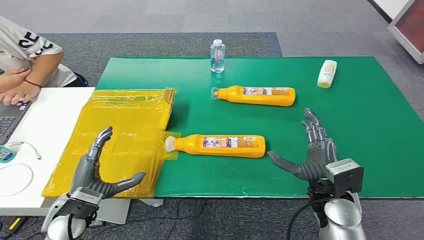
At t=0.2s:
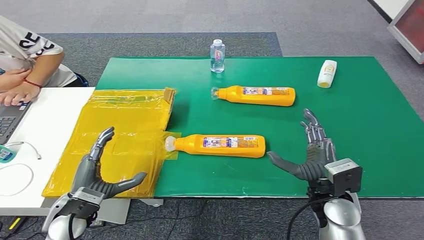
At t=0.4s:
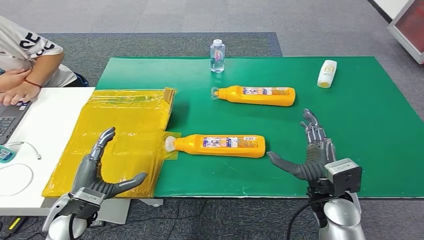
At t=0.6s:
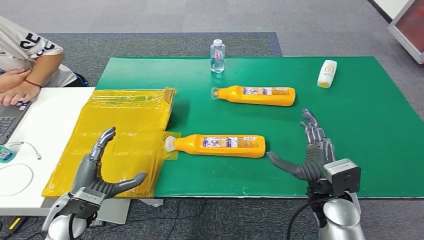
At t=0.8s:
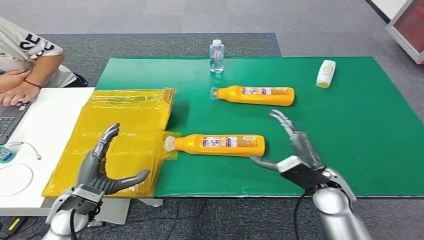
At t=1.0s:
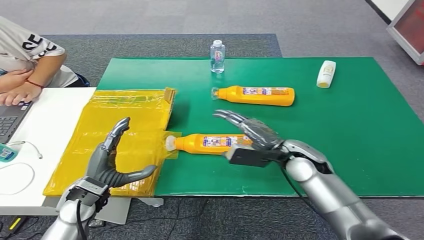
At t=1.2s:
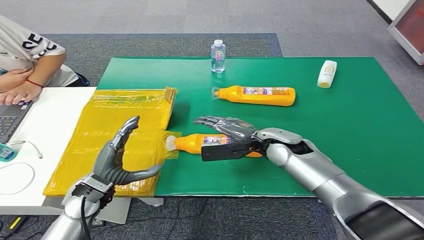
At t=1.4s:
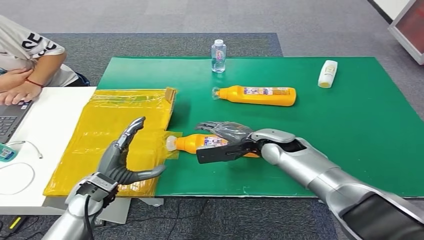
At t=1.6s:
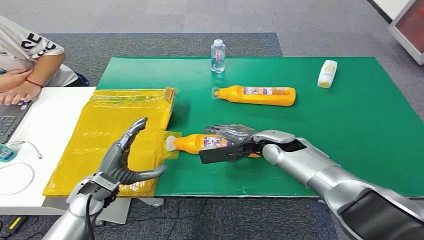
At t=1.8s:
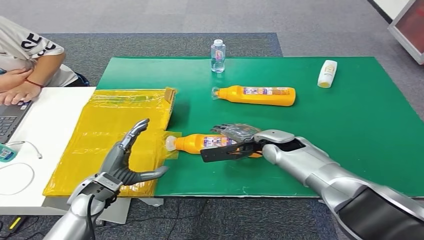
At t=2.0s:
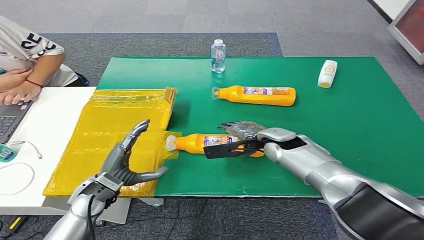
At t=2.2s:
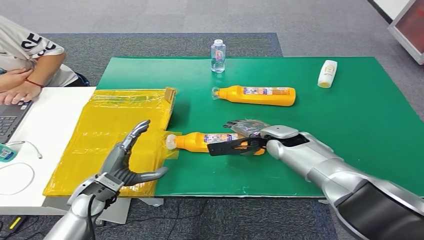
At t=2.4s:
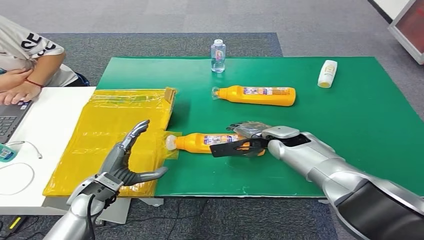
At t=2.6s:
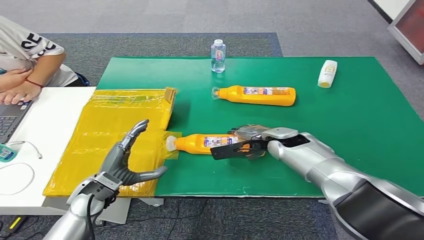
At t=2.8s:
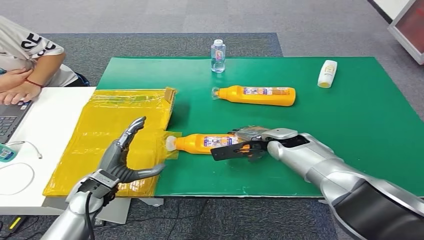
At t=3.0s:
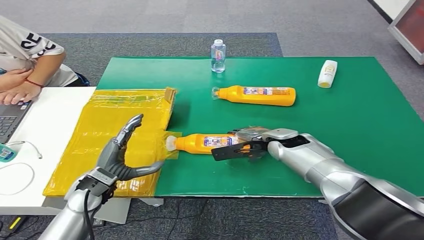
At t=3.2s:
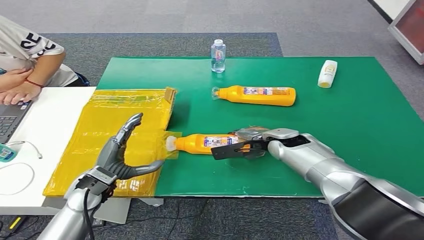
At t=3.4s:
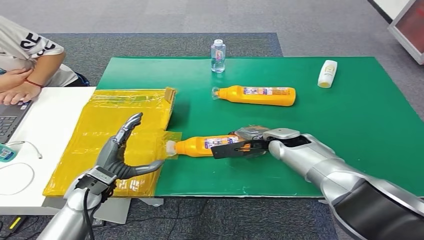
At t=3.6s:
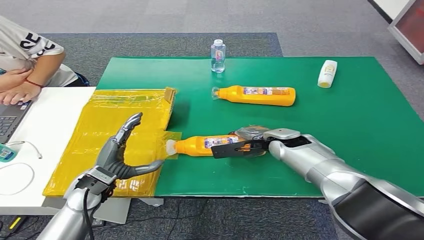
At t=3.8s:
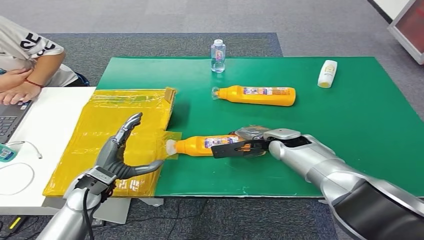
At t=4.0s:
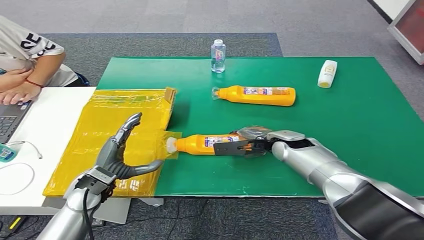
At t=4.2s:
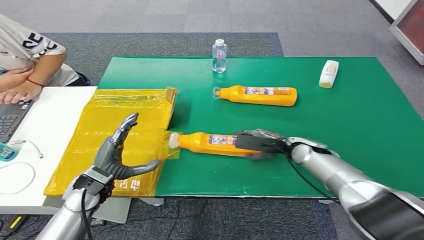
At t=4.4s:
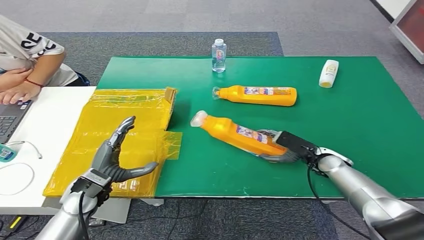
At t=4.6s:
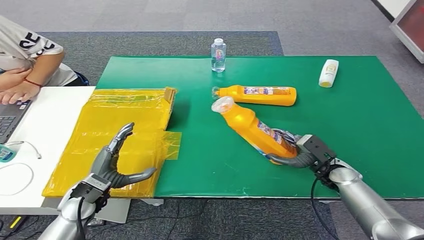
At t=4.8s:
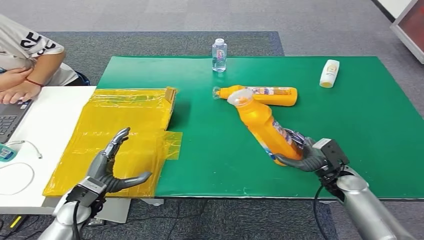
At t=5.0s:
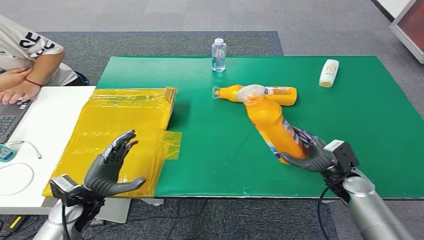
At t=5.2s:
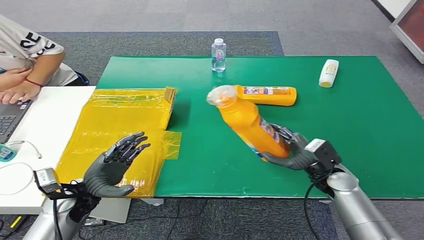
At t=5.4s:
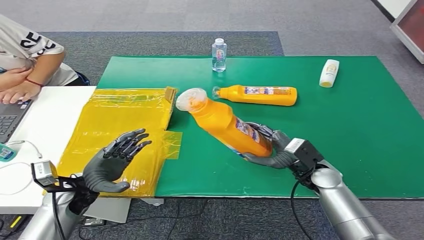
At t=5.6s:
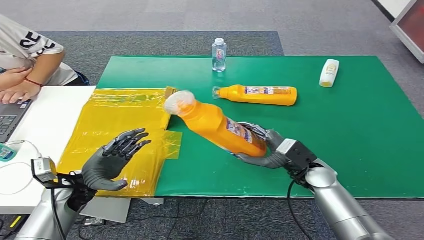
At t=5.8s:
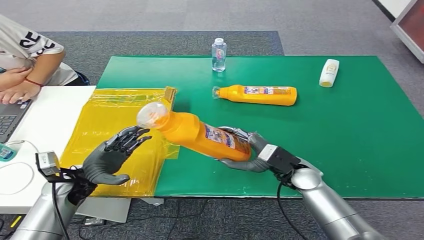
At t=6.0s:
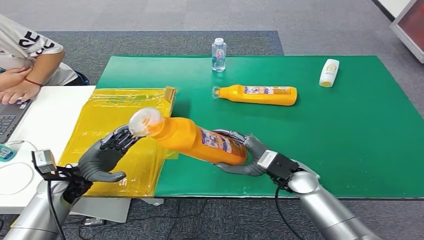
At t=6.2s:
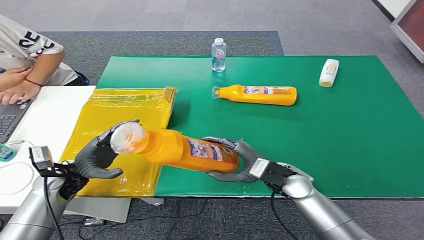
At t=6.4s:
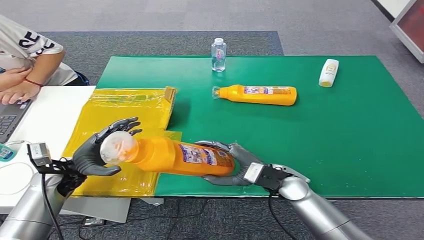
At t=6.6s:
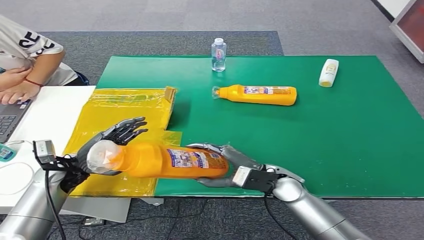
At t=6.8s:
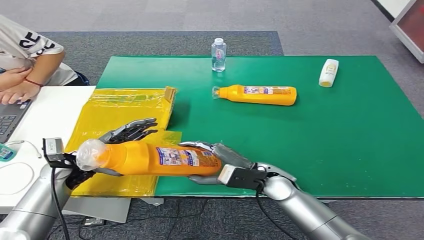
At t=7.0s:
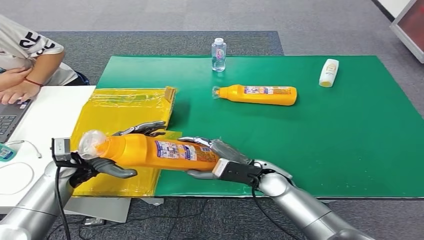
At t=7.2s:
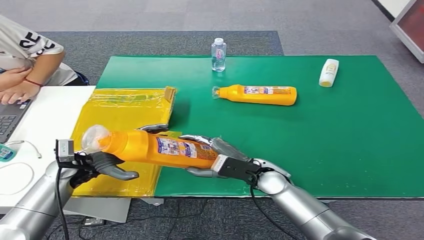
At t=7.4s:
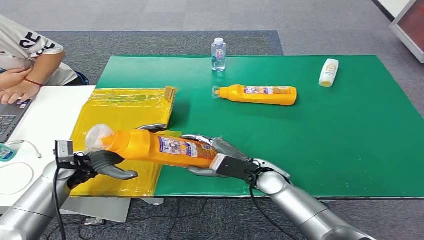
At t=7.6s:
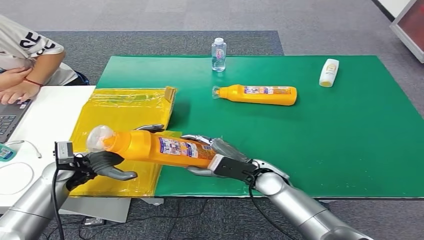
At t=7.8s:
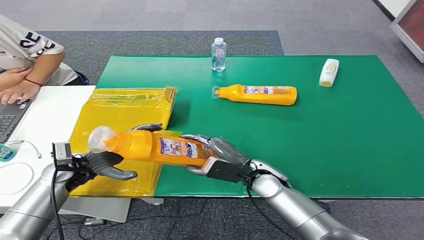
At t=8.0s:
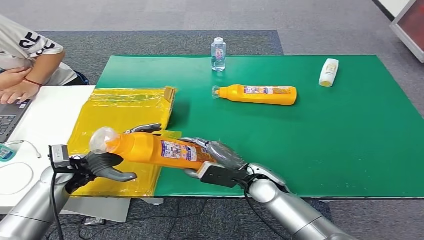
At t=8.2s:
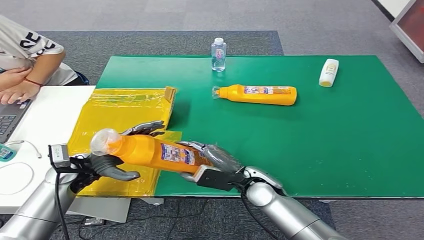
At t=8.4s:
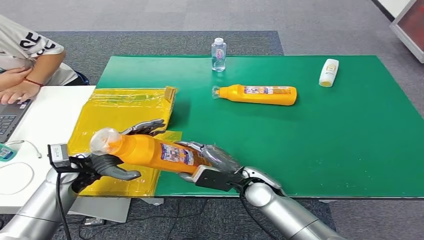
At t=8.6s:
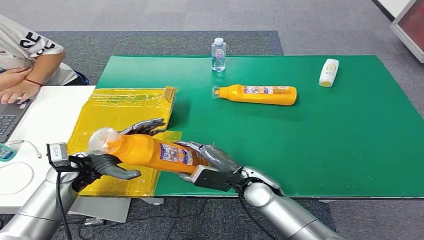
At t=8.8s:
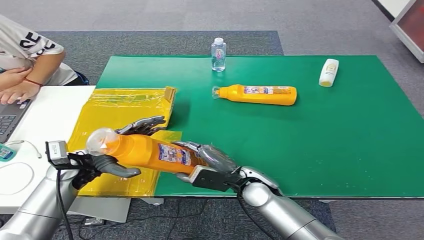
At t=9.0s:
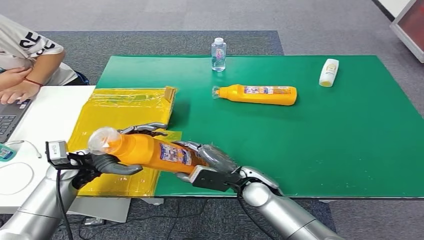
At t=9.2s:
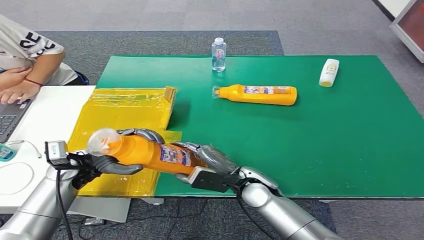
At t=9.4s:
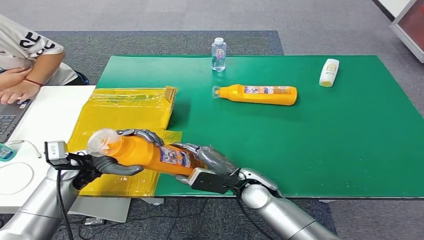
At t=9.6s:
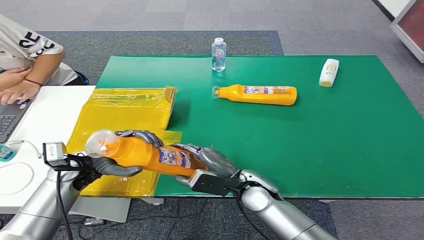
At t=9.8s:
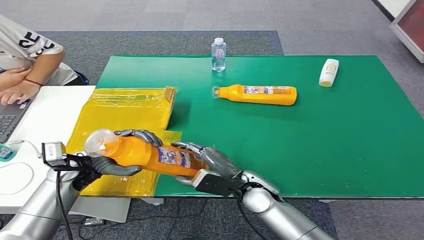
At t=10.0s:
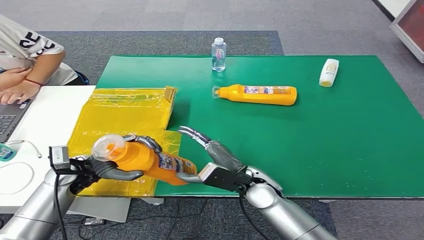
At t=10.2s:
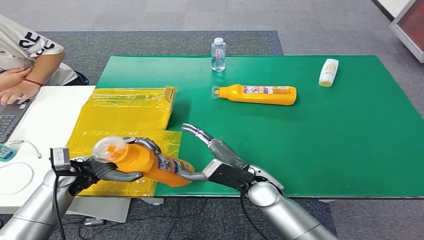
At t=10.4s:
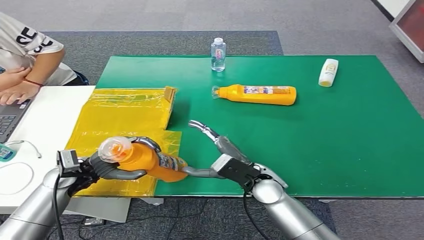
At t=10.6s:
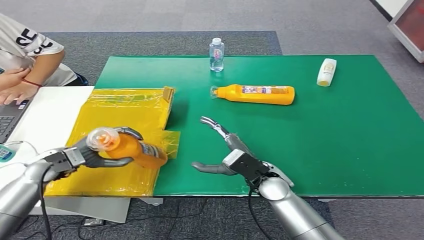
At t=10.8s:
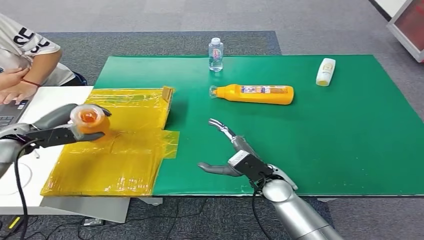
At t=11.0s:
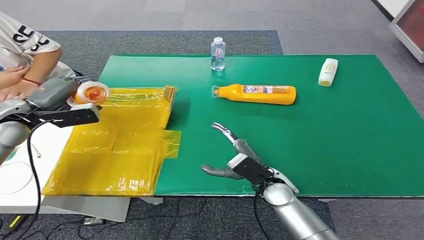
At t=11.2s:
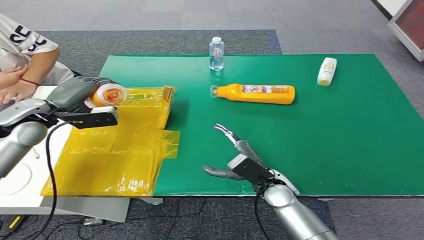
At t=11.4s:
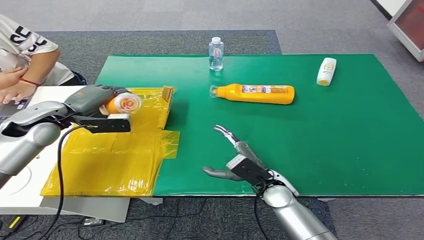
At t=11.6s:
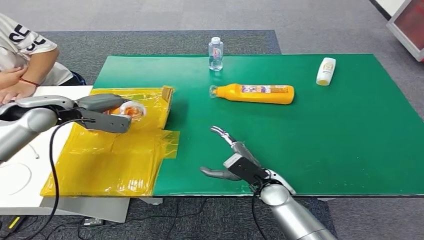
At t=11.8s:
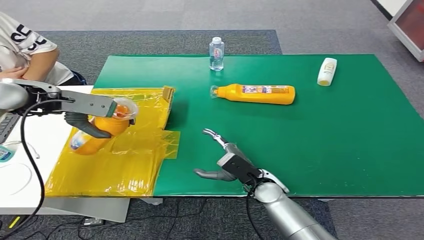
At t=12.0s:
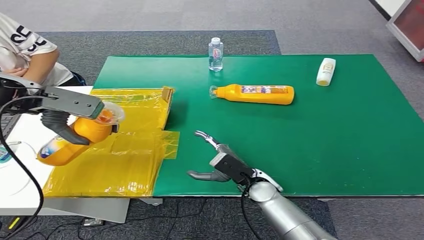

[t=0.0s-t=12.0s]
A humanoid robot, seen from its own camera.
Step, t=0.0s to t=5.6s: Pick up the bottle from the table.
t=3.0s to t=4.4s: The right hand moves to the right and downward, about 15 cm.
t=6.0s to t=7.6s: The right hand goes roughly 5 cm to the left.
t=7.6s to t=10.4s: The hands stay close to where they were, moving slightly.

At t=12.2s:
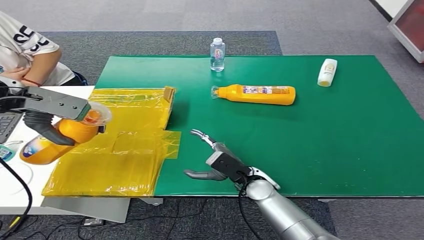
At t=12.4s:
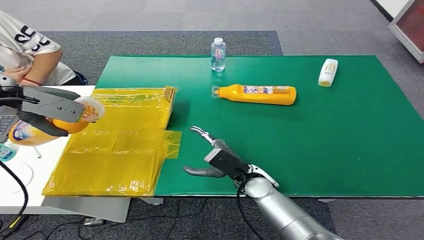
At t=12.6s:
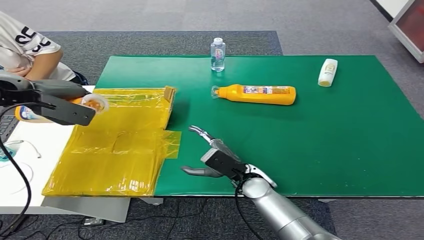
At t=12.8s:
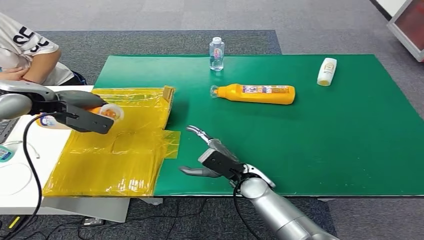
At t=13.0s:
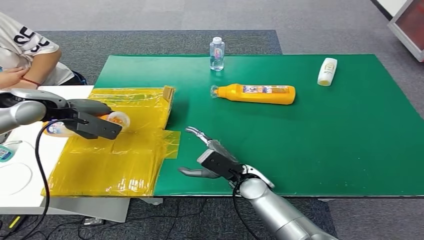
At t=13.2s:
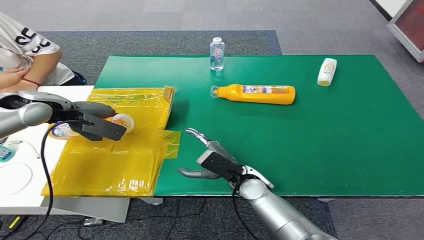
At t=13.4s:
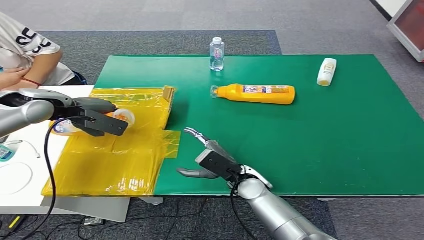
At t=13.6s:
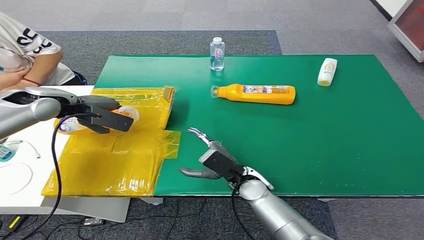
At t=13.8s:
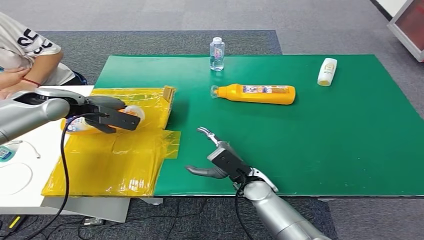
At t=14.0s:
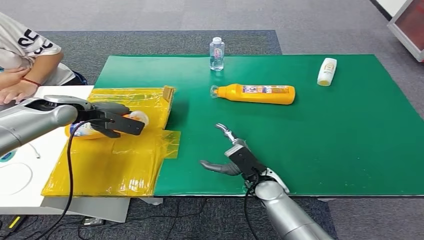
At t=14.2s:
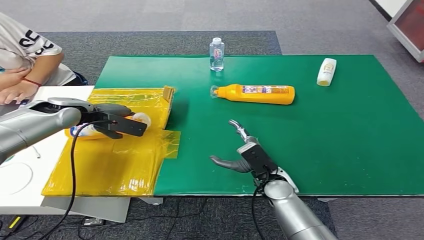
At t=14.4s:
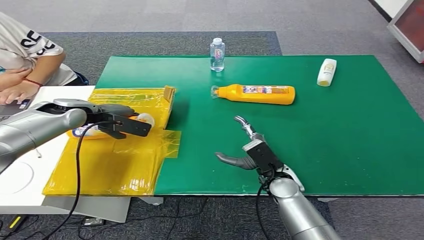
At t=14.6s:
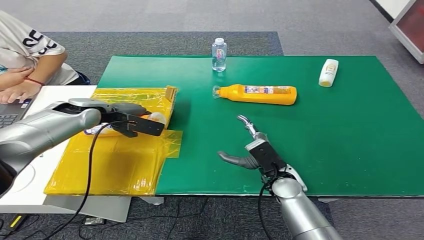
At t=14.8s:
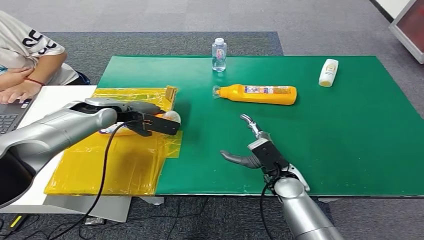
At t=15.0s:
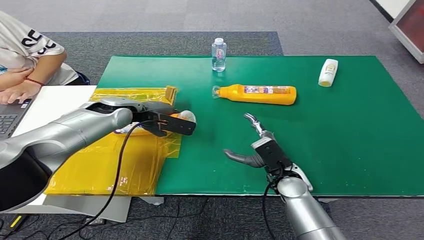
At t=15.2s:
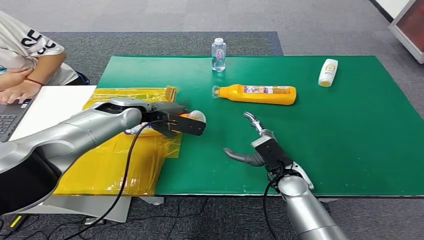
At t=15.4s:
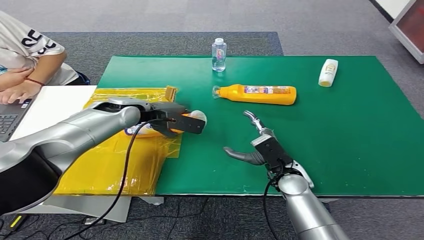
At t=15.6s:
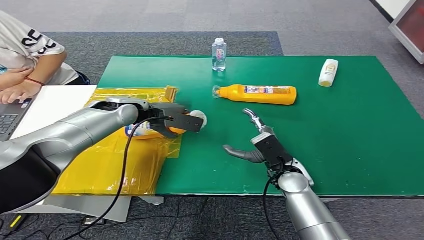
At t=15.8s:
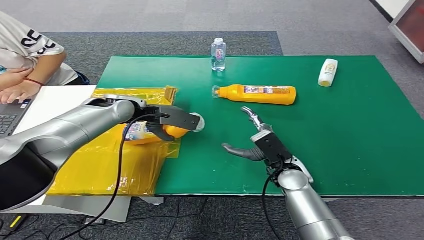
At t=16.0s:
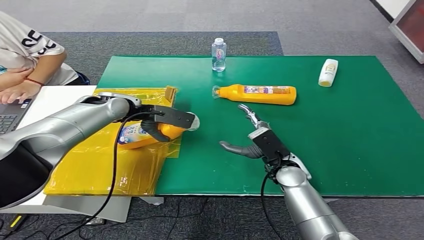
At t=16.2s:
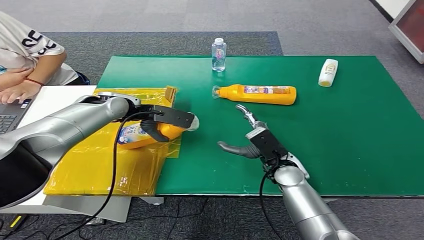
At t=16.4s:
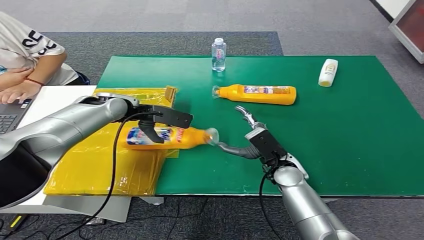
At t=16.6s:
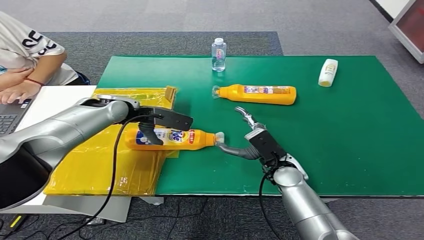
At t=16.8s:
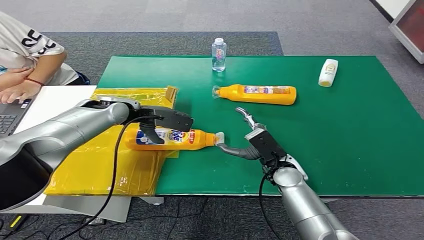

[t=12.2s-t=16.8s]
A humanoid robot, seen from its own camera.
Step, t=12.2s to t=16.8s: Turn the bottle to the front side.
t=12.2s to t=13.8s: The left hand is displaced downward and forward by about 15 cm.
t=15.2s to t=16.8s: The hands make only small movements.
